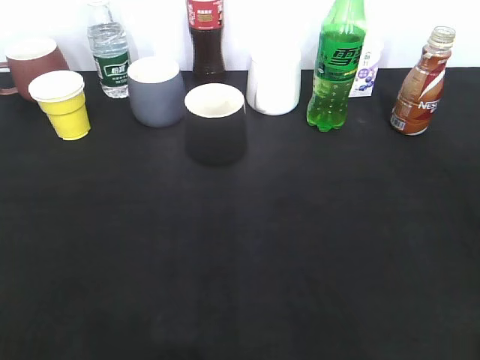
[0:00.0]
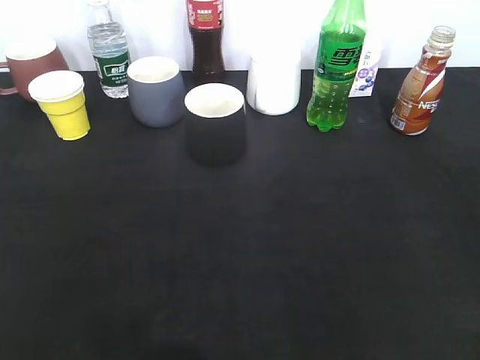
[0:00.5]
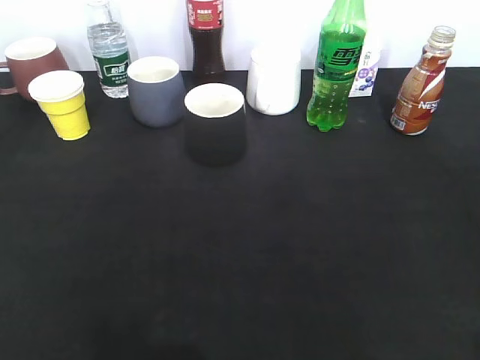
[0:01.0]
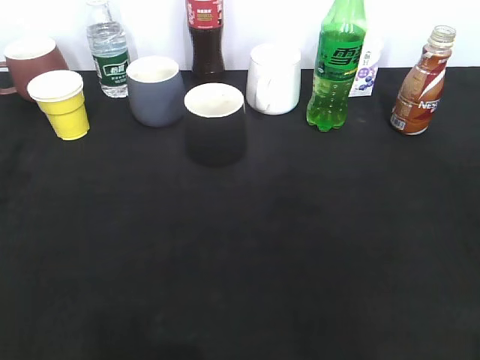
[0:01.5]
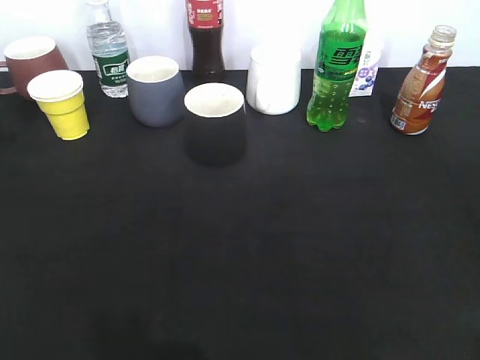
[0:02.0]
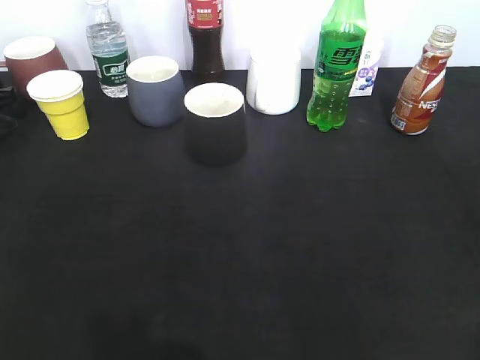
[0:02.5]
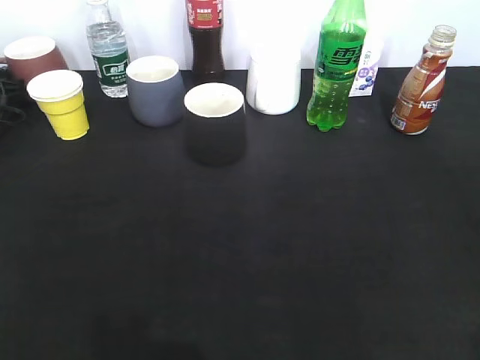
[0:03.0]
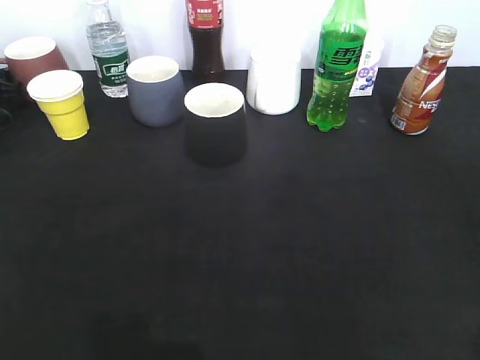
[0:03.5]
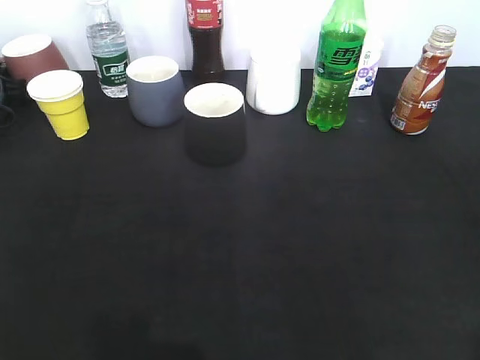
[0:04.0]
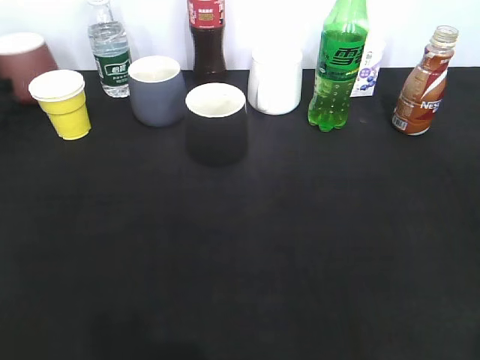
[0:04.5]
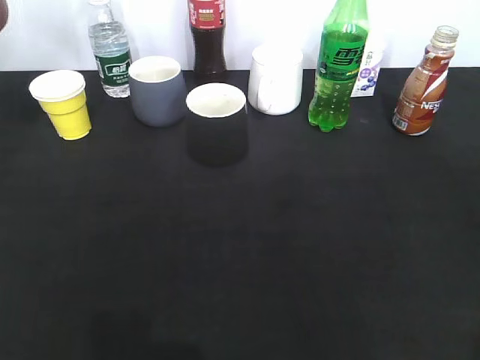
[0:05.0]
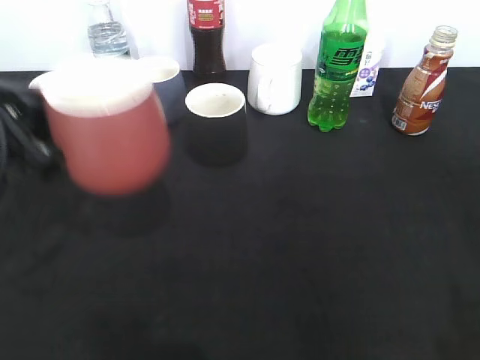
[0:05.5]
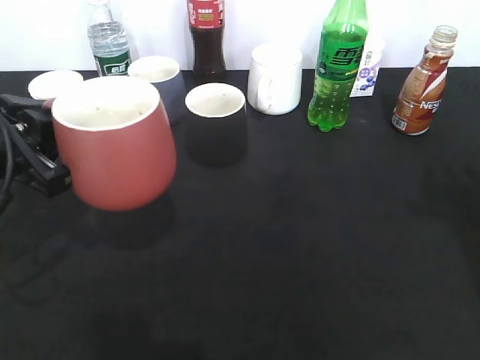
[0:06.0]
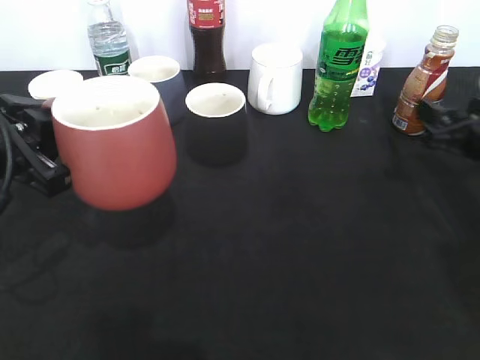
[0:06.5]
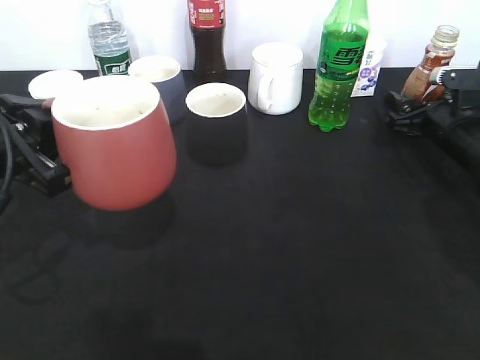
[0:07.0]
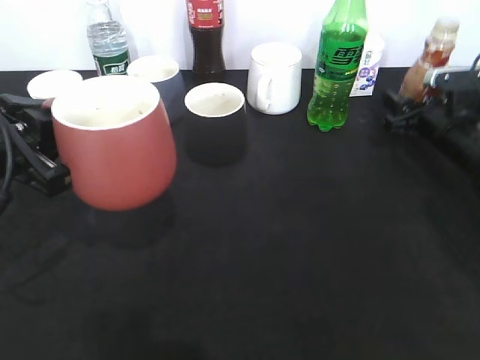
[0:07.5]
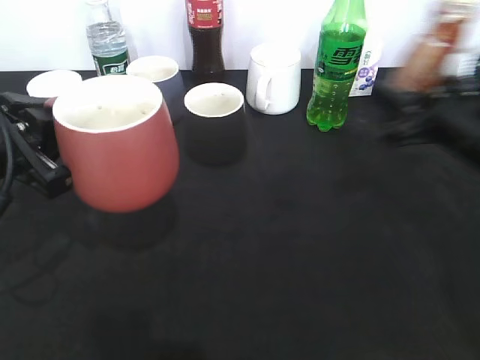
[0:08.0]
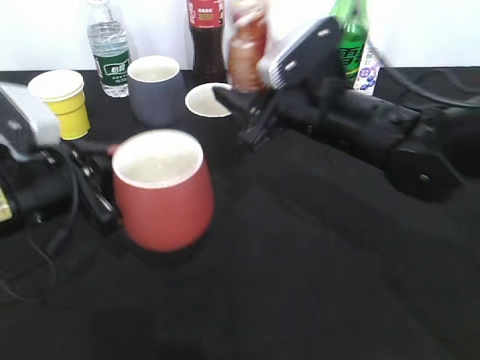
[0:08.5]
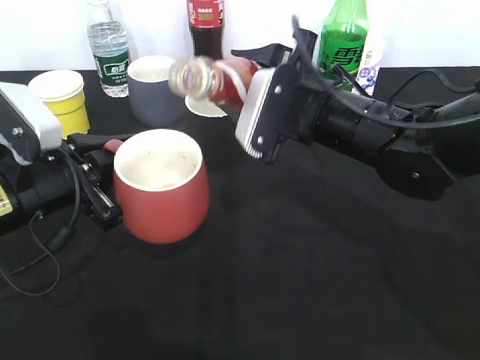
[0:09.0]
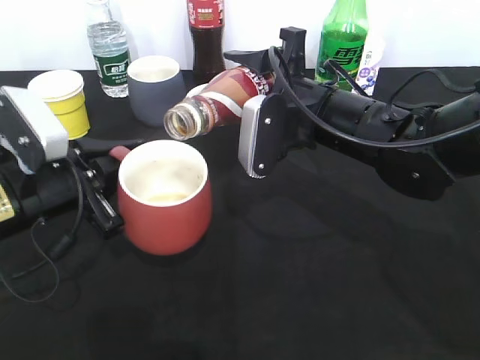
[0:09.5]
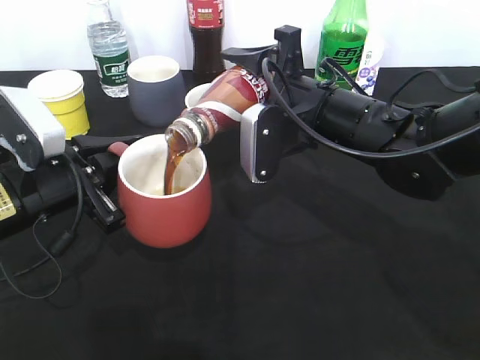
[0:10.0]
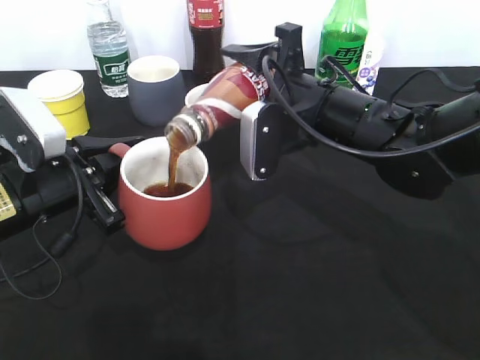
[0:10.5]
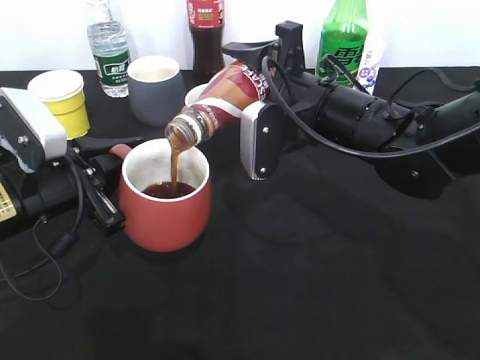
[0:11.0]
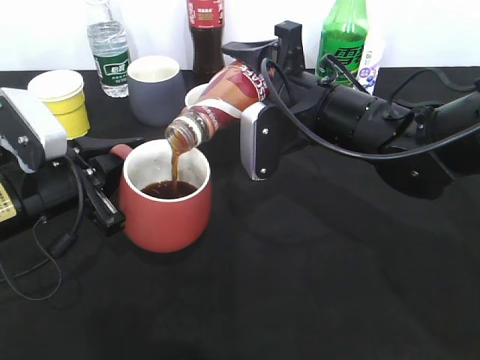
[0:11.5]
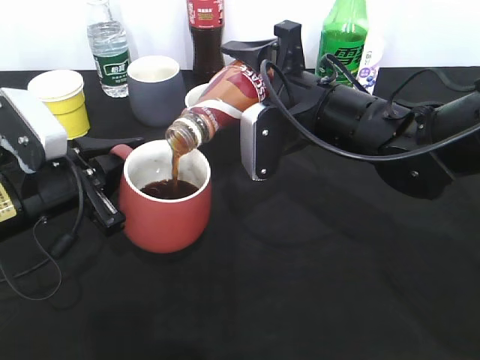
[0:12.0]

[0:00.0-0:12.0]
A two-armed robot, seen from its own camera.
Step, 0:04.5 to 0:06.0: Lift the red cup with left gripper.
Step, 0:06.5 to 0:07.0: Grasp the bottle with coffee with right gripper.
0:00.0 to 0:02.0: The left gripper goes roughly 35 cm forward.
0:04.0 to 0:06.0: The right gripper goes about 20 cm forward; the left gripper heads backward and to the right, covering approximately 35 cm.
0:06.0 to 0:08.0: The right gripper shifts some 15 cm forward, downward and to the left, and opens and closes again.
0:08.0 to 0:10.0: The left gripper is displaced downward by approximately 5 cm; the right gripper moves to the left, approximately 15 cm.
0:10.0 to 0:12.0: Both grippers stay put.

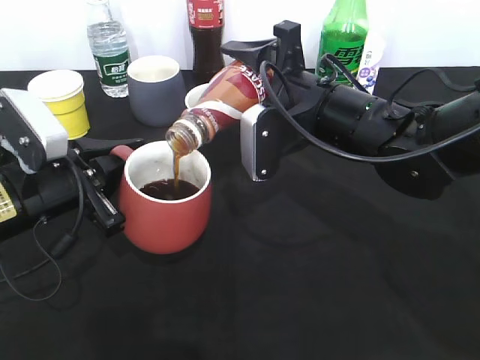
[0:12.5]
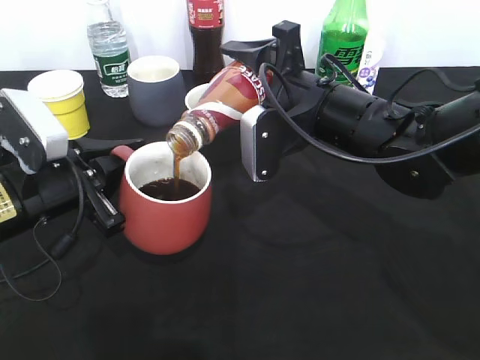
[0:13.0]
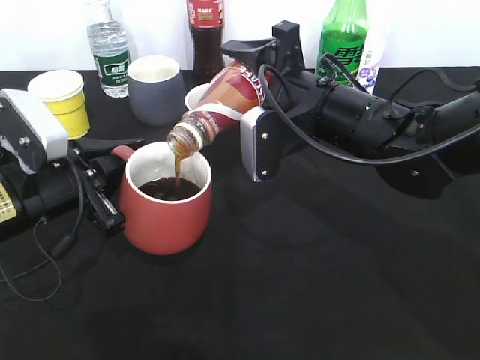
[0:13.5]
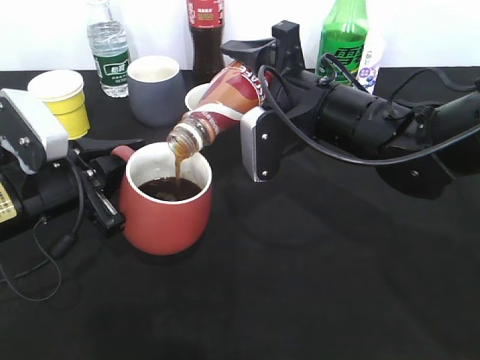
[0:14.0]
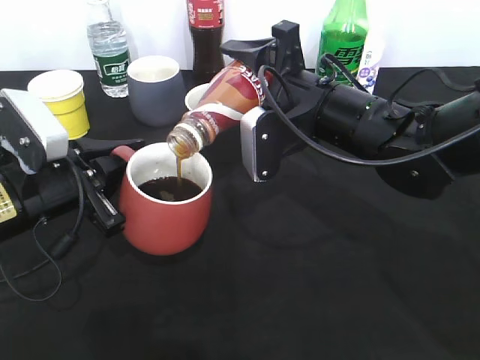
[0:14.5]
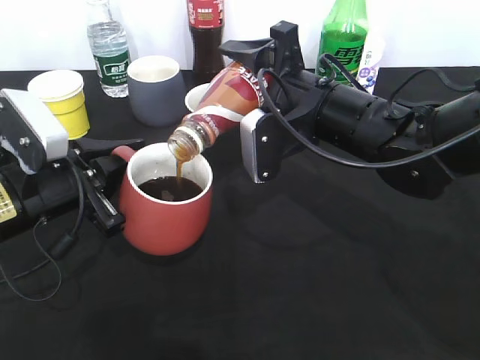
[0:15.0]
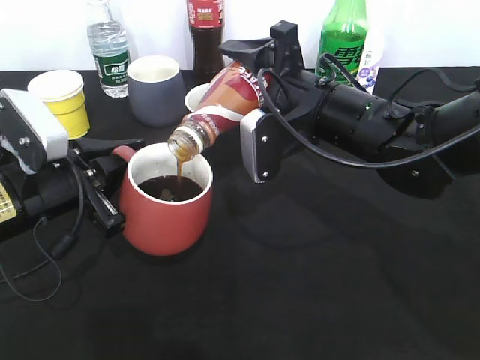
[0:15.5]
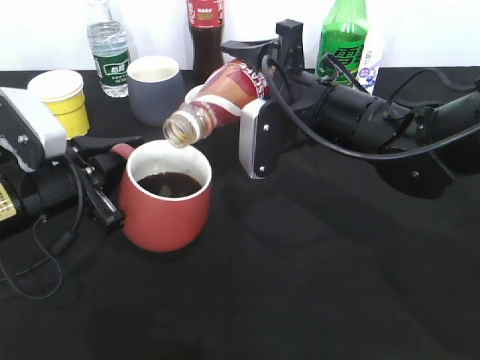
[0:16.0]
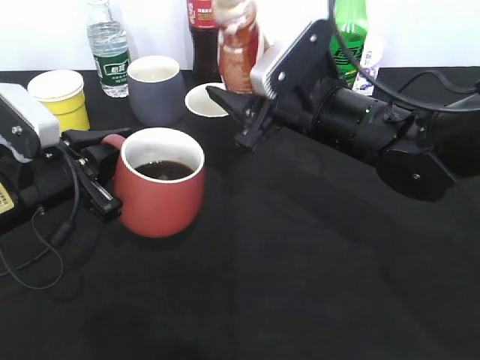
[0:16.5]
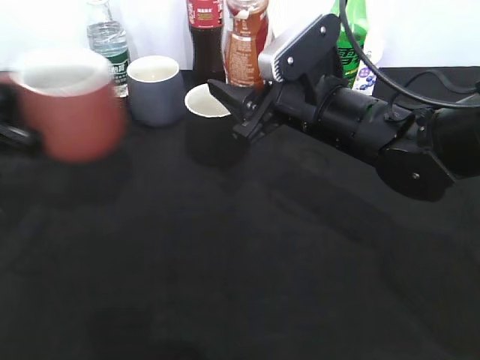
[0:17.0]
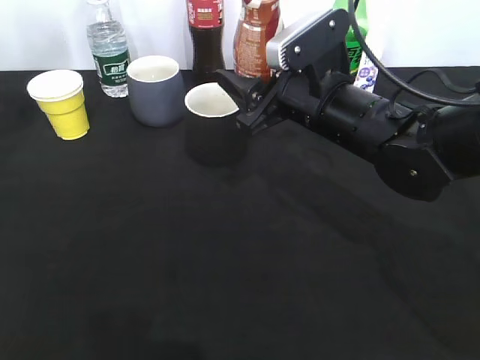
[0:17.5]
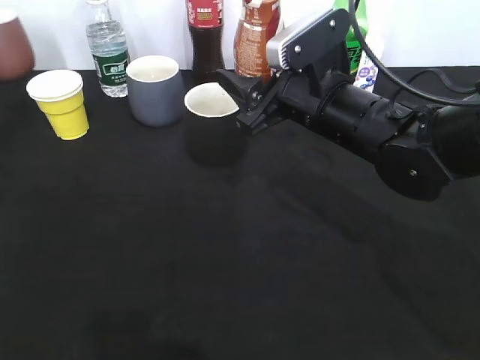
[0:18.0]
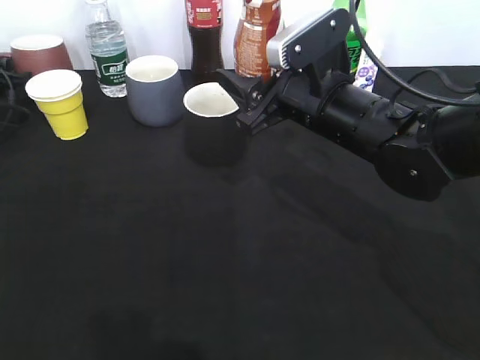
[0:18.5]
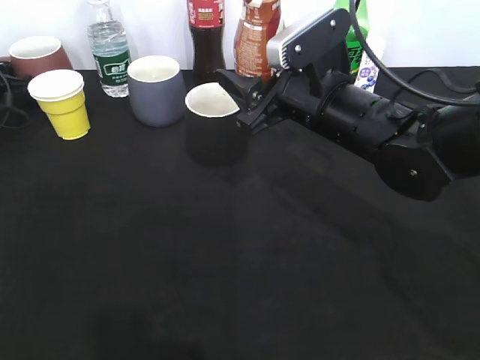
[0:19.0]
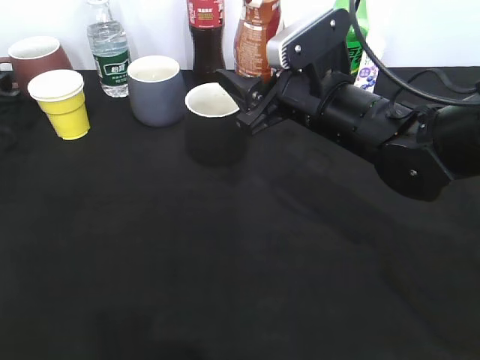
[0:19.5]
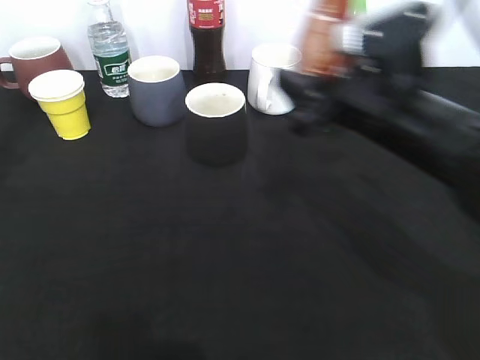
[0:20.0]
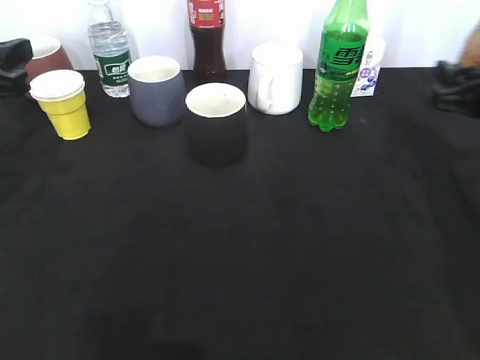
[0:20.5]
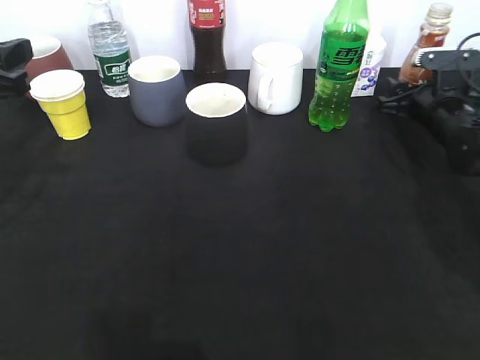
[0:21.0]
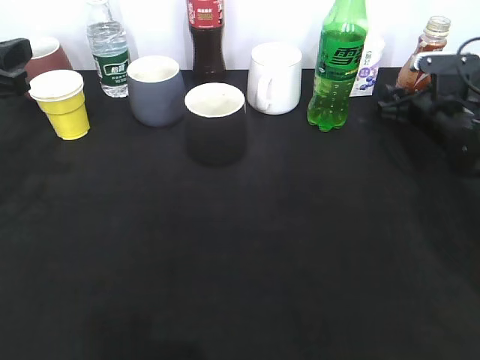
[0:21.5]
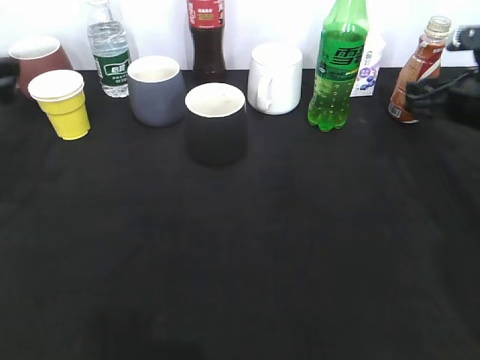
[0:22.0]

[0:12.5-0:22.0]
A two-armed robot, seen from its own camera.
Step, 0:12.5 to 0:16.0: Pour the coffee from bottle to cup with right gripper.
Step, 0:16.5 to 0:19.0: Place the red cup on the table with left gripper.
Step, 0:19.5 to 0:21.0: Place the coffee bottle on the table with right gripper.
0:12.5 to 0:14.5: Both grippers stay put.
0:16.5 to 0:18.0: The left gripper goes about 30 cm to the left and forward.
0:18.0 to 0:20.0: The left gripper is displaced backward, to the right and upward by some 20 cm, and opens; the right gripper goes approximately 5 cm to the right.
0:20.0 to 0:22.0: The right gripper moves to the right and forward, about 15 cm. The left gripper moves roughly 5 cm.

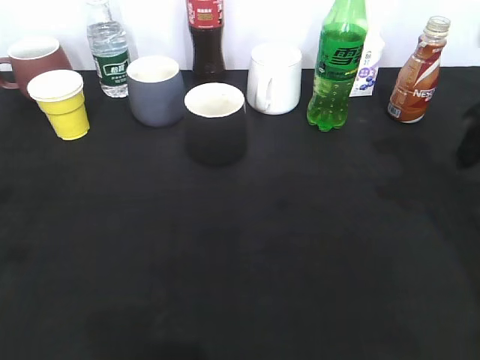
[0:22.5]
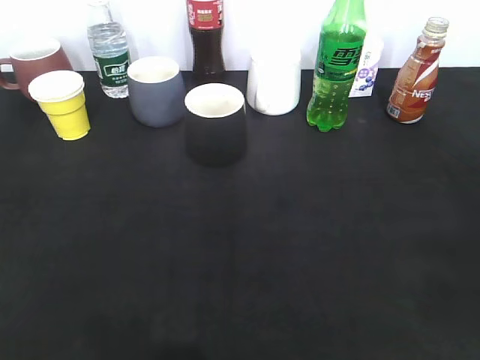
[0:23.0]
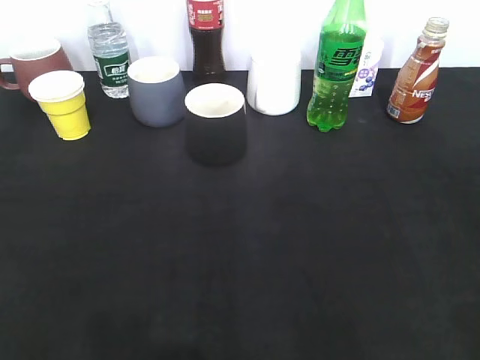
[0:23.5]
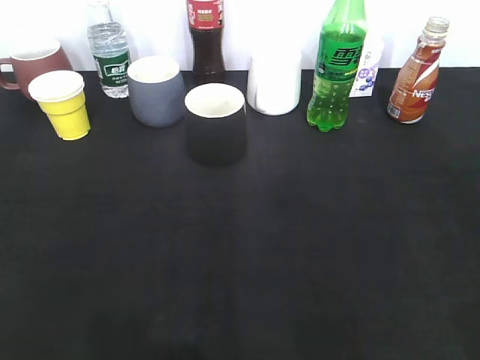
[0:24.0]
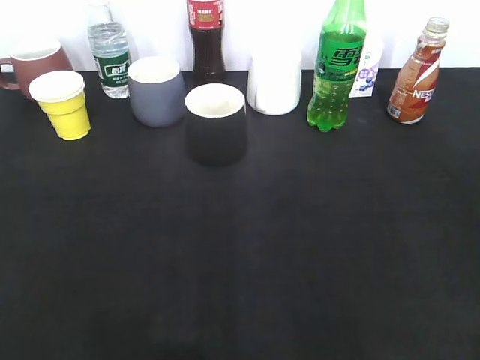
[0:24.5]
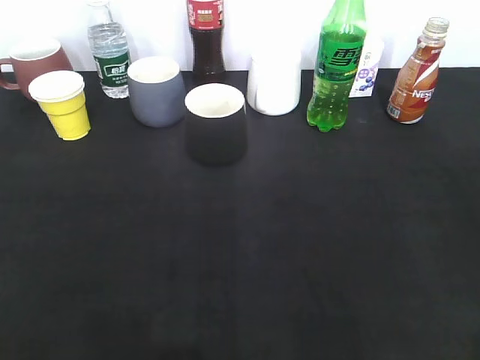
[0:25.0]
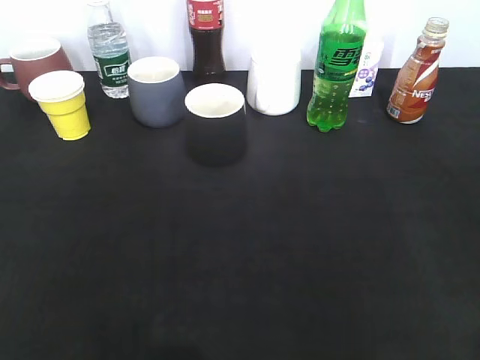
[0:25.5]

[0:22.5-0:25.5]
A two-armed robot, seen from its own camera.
0:22.5 to 0:24.0: The left gripper is displaced backward by some 15 cm. The right gripper travels backward by some 25 cm.

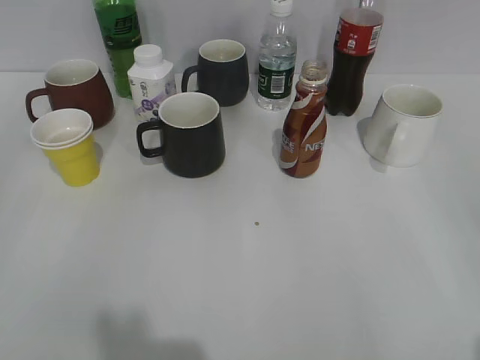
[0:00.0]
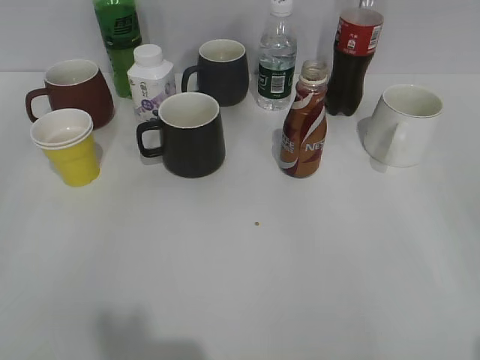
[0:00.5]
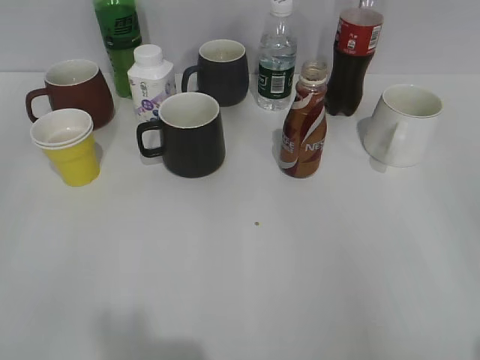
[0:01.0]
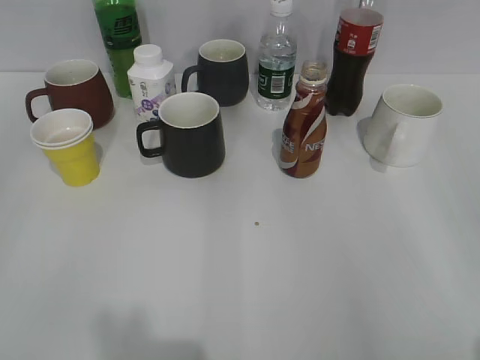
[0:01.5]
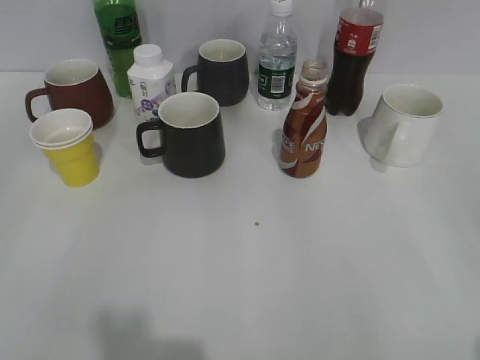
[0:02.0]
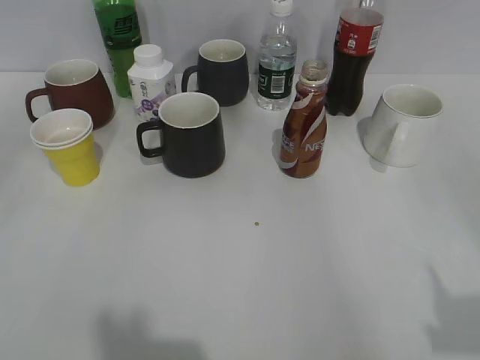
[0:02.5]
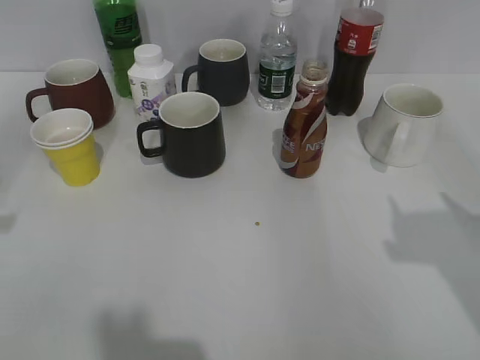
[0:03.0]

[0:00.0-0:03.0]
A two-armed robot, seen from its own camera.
0:01.5 to 0:03.0: Both grippers move forward, some 15 cm.
